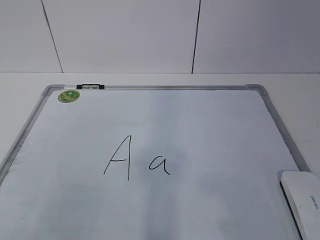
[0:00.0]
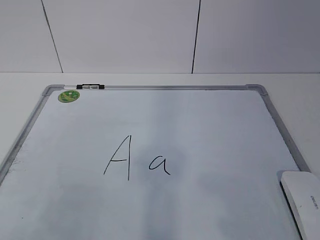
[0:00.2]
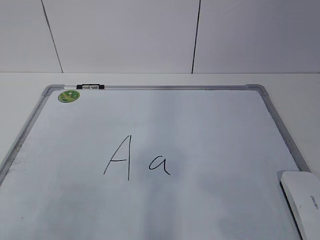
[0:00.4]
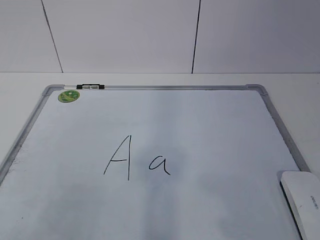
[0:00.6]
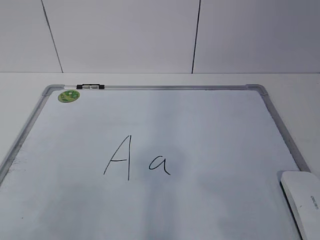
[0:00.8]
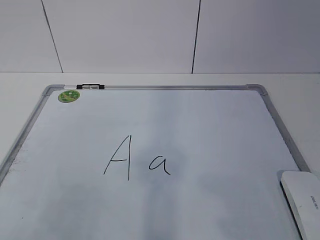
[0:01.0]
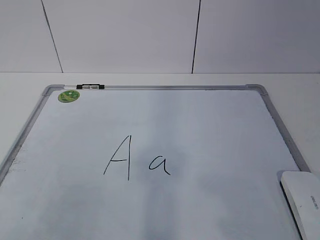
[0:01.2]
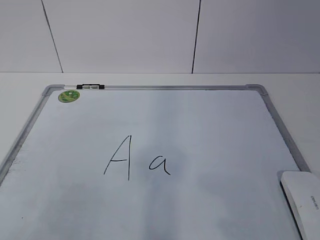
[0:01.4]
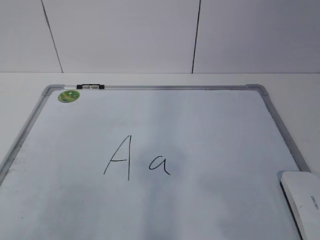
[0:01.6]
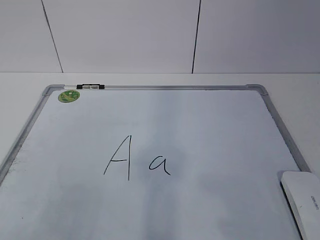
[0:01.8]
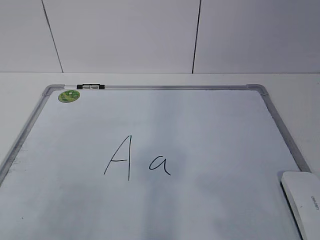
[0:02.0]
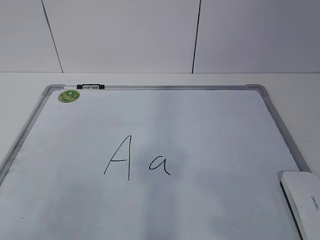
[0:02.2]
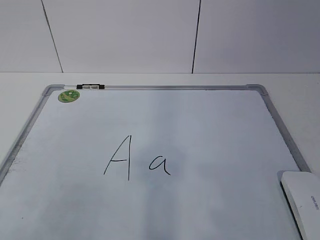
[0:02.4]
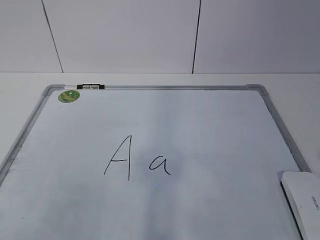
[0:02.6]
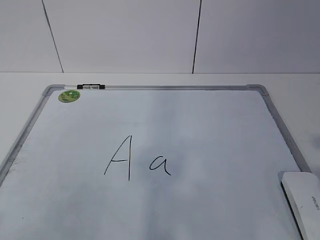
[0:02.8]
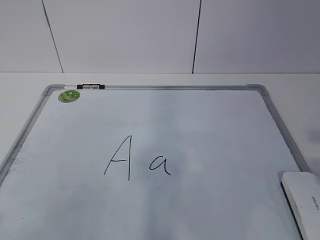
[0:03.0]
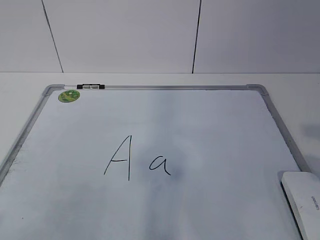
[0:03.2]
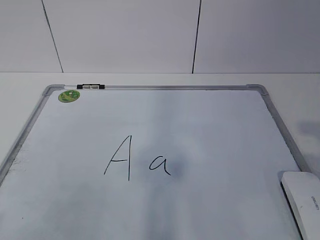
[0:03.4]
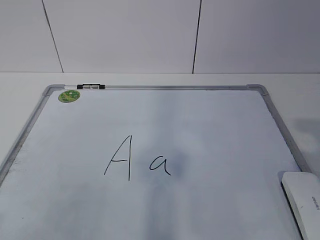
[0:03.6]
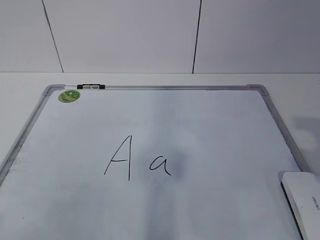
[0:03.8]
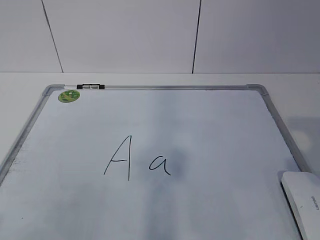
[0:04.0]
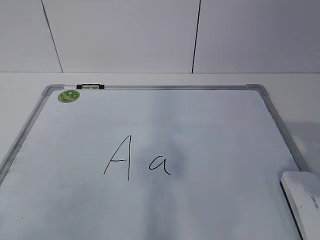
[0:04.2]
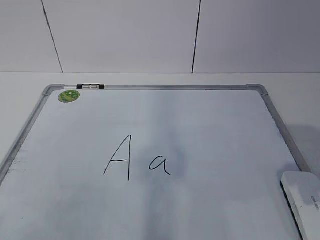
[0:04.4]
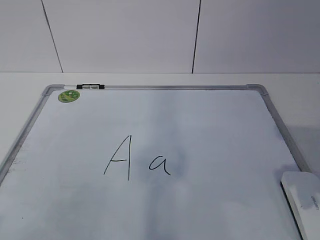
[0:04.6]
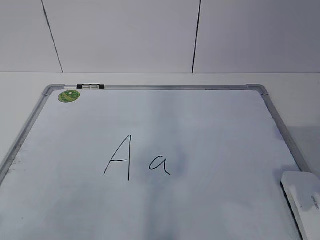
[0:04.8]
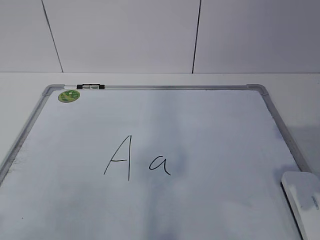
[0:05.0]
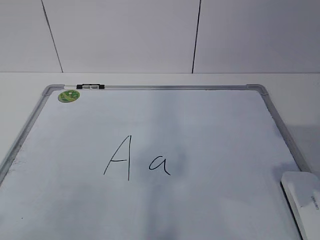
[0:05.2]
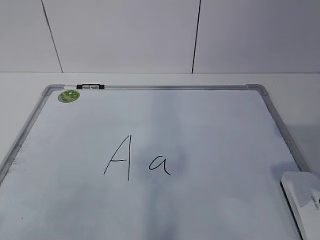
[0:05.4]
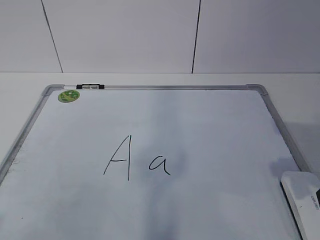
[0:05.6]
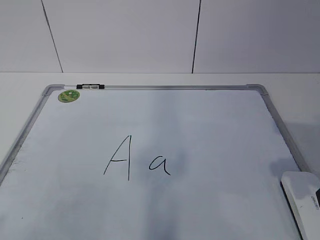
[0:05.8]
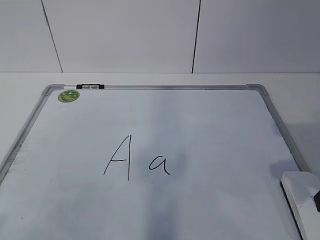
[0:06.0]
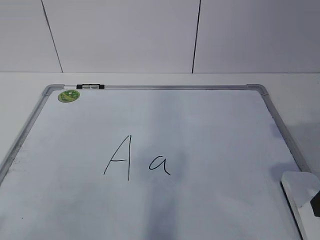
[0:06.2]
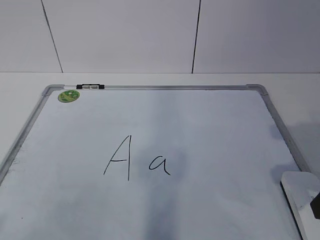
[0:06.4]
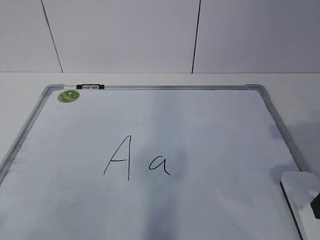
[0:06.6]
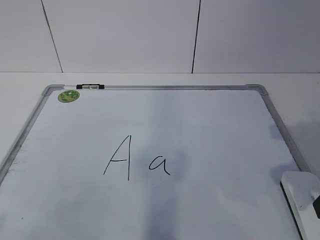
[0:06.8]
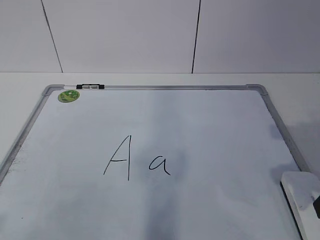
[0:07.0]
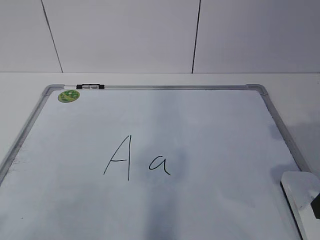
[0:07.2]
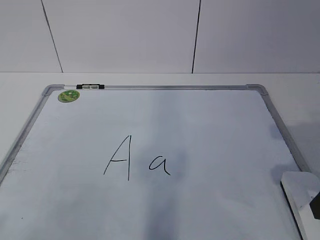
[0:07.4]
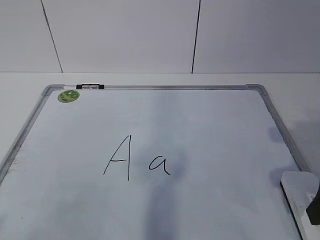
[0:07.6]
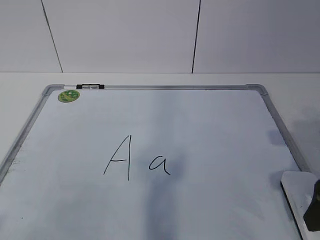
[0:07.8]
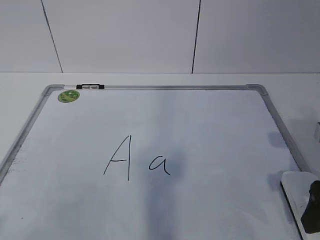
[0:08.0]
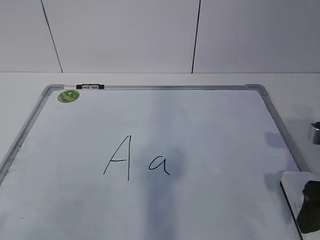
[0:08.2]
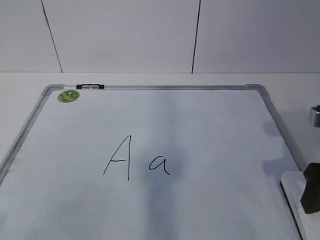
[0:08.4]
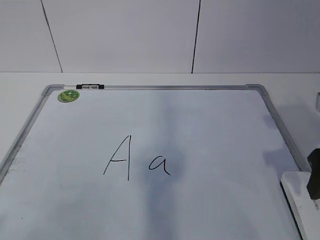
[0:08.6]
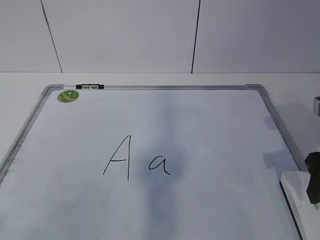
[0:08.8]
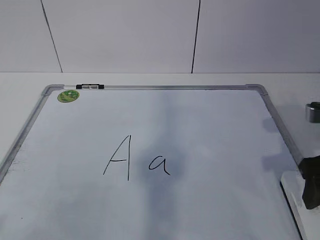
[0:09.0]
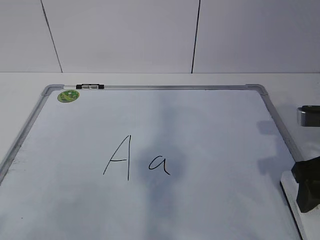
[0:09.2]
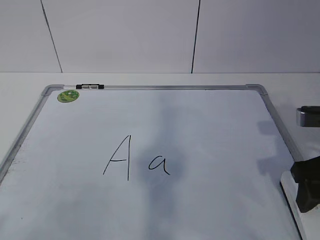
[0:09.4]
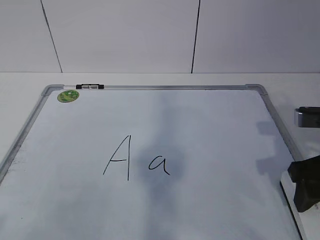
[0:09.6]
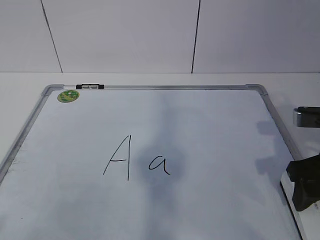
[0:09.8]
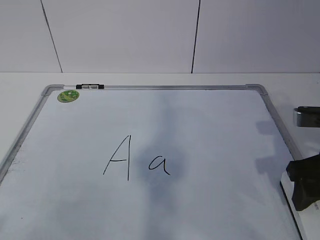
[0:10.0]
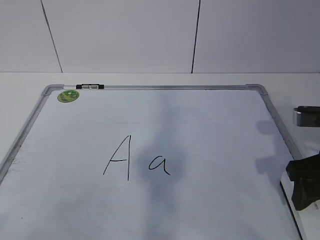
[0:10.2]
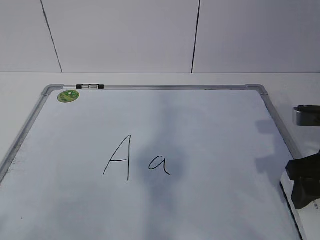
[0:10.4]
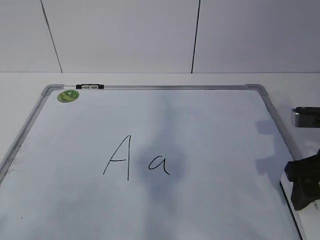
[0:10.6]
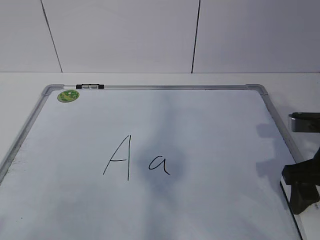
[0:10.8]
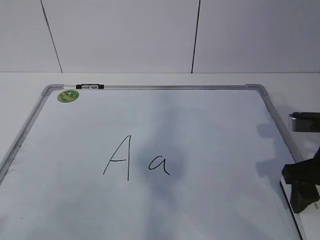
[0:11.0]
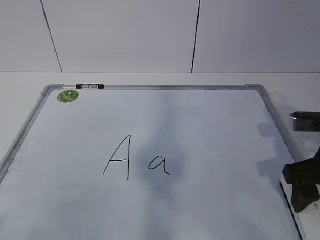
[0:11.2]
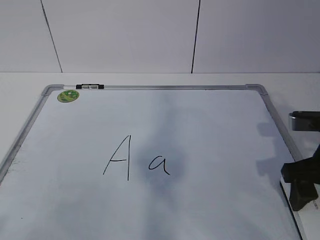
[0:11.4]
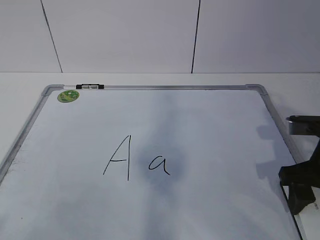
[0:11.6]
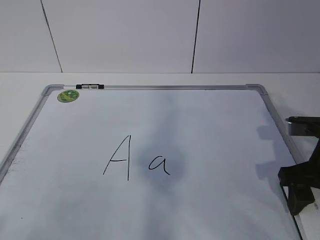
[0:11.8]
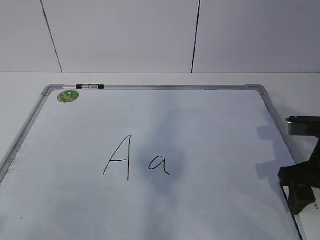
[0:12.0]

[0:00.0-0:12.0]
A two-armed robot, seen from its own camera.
Task of the whole recording: pick up the eraser on the blackboard and erase the letter "a".
Step, 0:00.0 to 0:11.4: Grab the eraser with your right hand.
0:06.0 to 0:07.6: The right gripper opens its fingers.
0:07.6 to 0:10.4: There are only small adjustments of the grippers.
0:10.4 to 0:12.0: There are only small adjustments of the grippers.

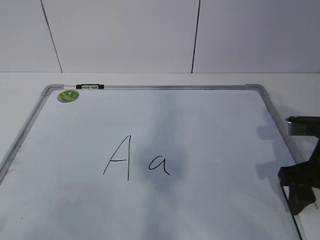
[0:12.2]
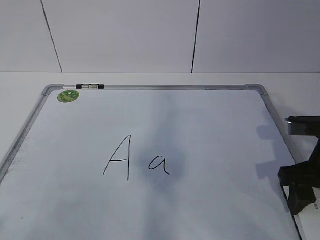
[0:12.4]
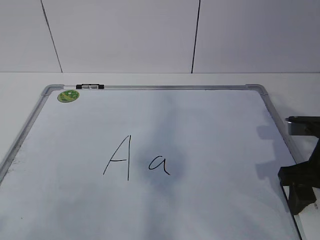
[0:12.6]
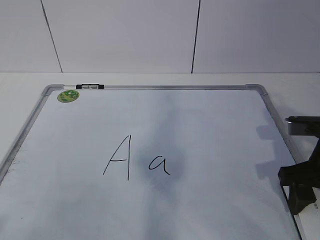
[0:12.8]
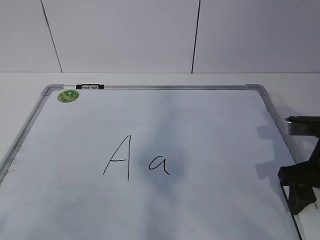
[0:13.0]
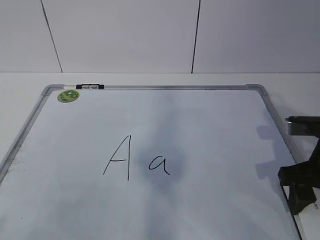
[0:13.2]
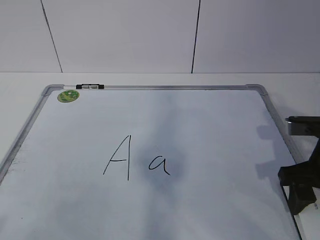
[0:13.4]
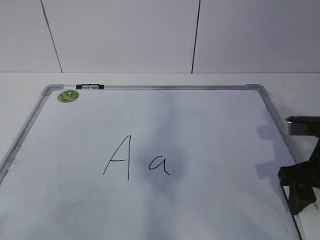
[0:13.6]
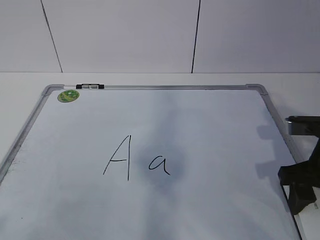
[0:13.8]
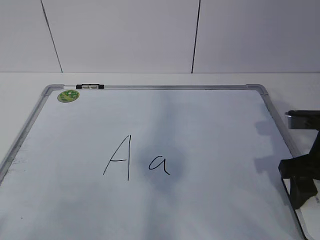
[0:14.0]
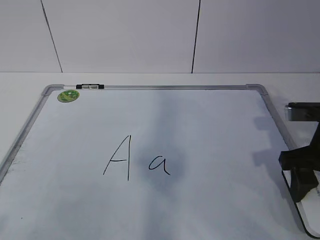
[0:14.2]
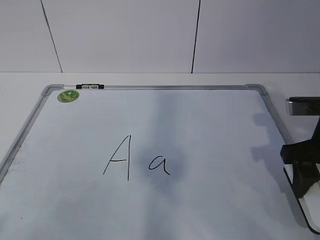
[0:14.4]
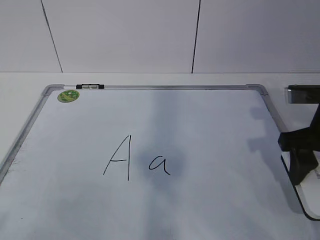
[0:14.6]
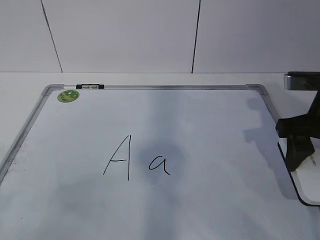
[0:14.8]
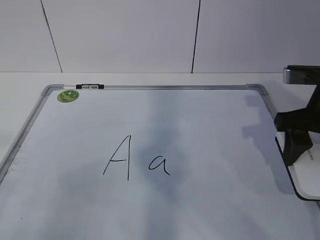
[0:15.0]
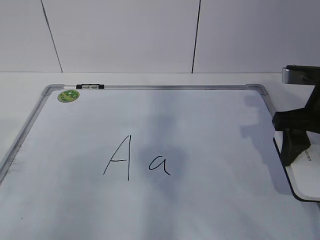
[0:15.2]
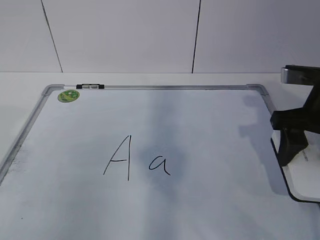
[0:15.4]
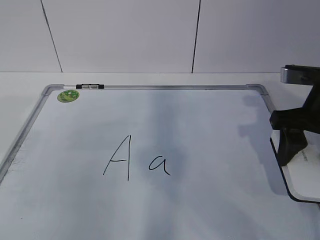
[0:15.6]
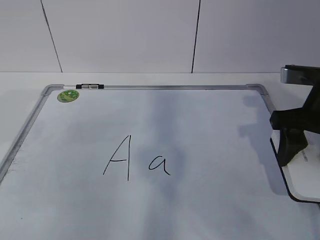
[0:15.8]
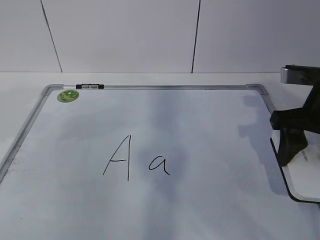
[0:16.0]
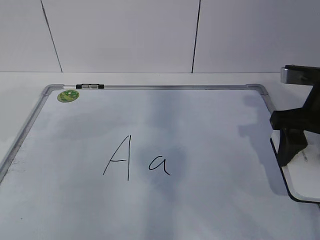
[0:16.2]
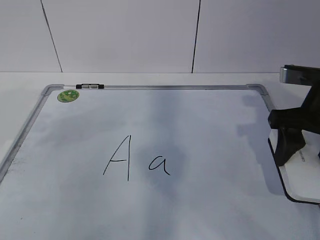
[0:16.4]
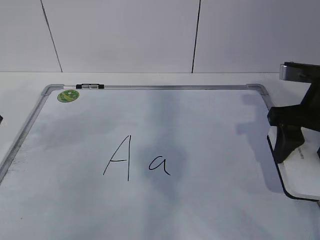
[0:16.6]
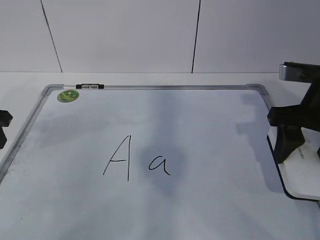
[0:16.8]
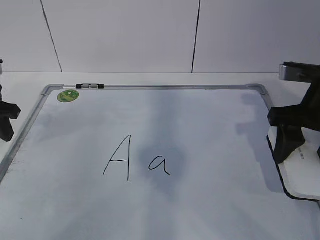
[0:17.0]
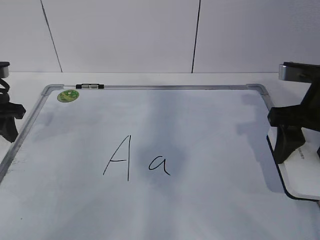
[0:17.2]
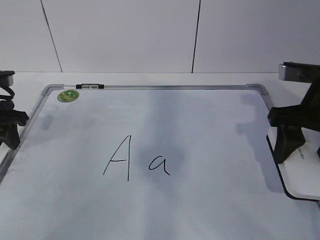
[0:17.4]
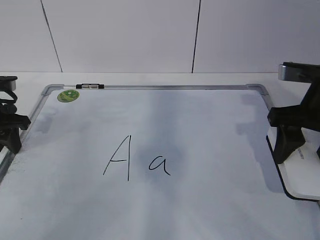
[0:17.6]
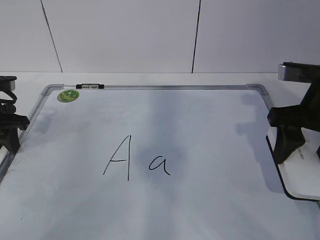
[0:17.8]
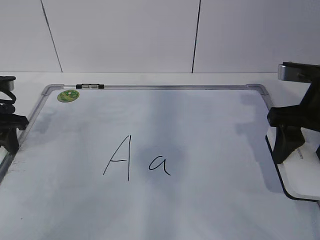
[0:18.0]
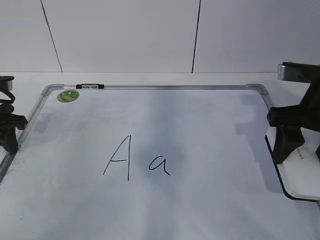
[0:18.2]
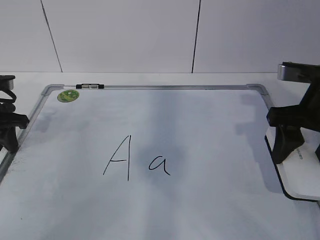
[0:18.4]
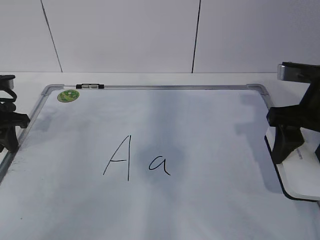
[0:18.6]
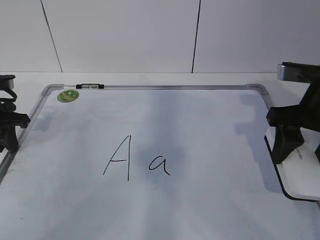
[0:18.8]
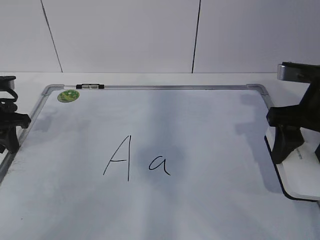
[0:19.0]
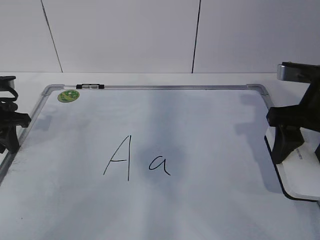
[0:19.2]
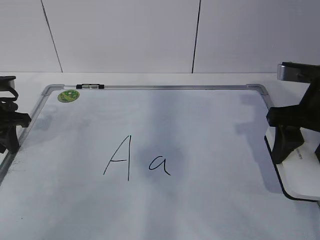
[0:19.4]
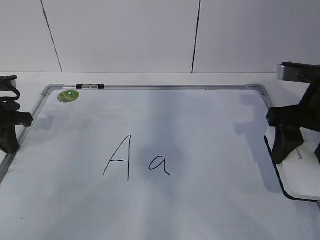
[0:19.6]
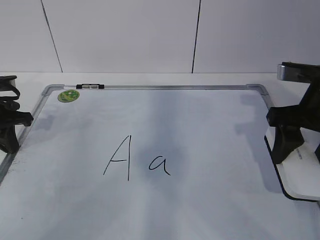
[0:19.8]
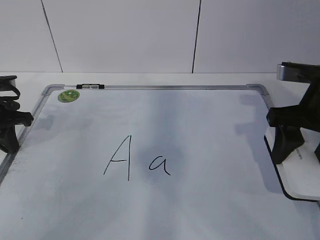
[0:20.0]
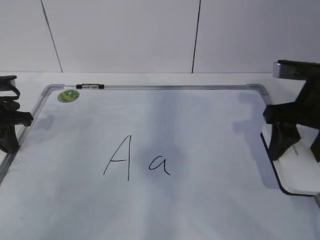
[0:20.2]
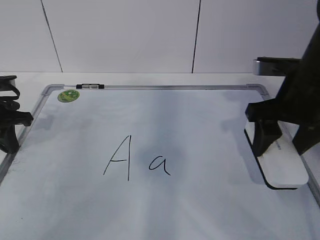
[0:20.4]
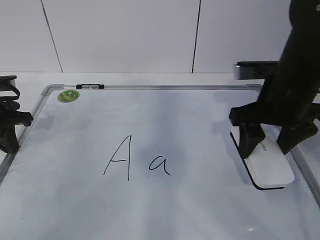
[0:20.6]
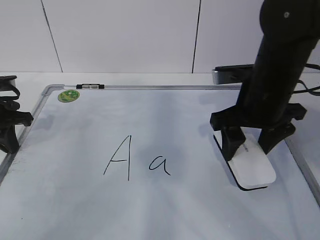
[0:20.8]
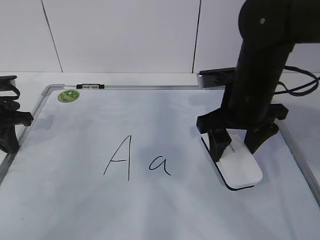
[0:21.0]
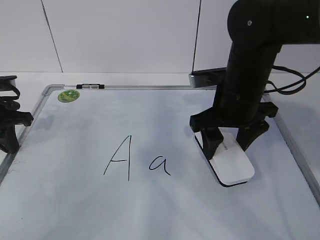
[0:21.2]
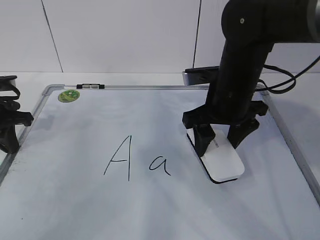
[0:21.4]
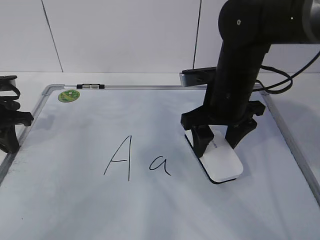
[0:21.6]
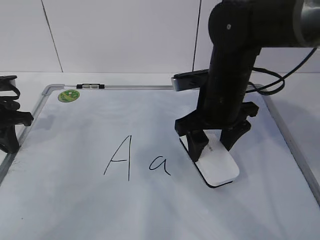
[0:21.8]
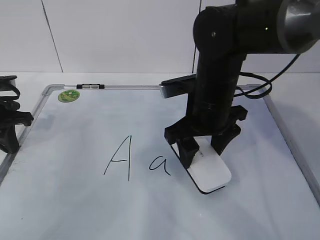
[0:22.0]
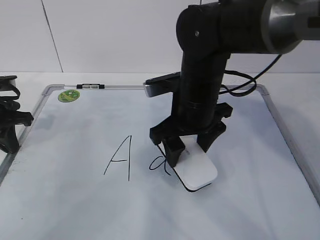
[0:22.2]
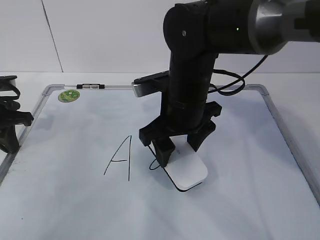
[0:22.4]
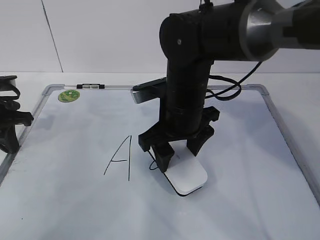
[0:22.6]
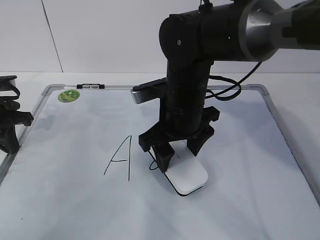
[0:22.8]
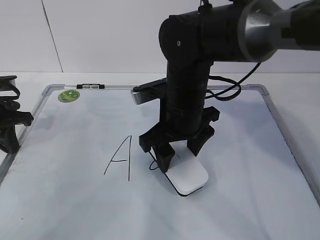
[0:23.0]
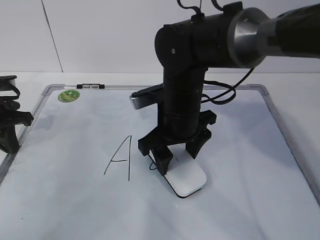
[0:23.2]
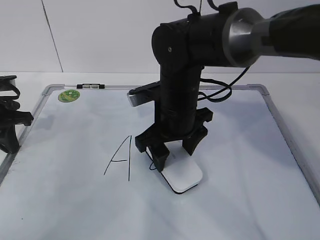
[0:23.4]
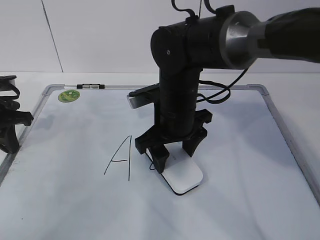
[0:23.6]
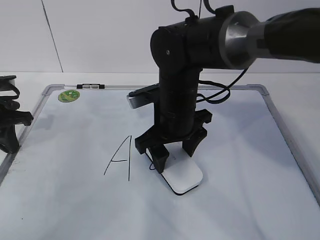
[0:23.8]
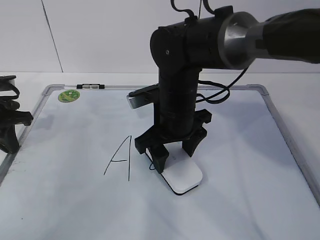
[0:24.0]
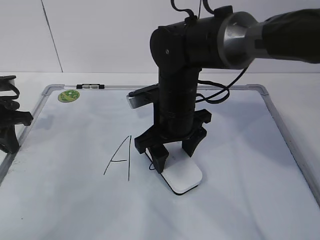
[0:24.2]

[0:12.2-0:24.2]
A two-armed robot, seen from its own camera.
Task of the whole recording: pick up the eraser on the blackboard and erase the letter "a".
Step, 0:12.2 to 0:16.2: Hold the drawing board steady with your left hand.
0:12.2 to 0:13.8: Both grippers stay put.
0:13.8 to 0:15.2: The right gripper shifts some 5 cm upward.
0:16.6 to 0:18.2: The left gripper travels forward and downward by approximately 10 cm.
0:18.2 to 0:19.8: The left gripper closes its fingers.
0:19.8 to 0:21.2: The right gripper heads to the left and forward, covering roughly 10 cm.
0:21.2 to 0:22.6: The right gripper shifts roughly 10 cm to the left.
0:22.6 to 0:24.2: The grippers make only small movements.
